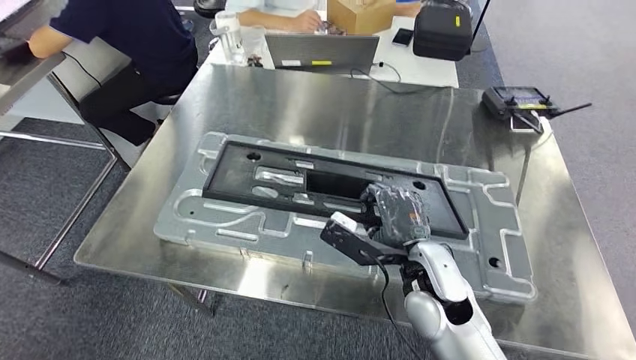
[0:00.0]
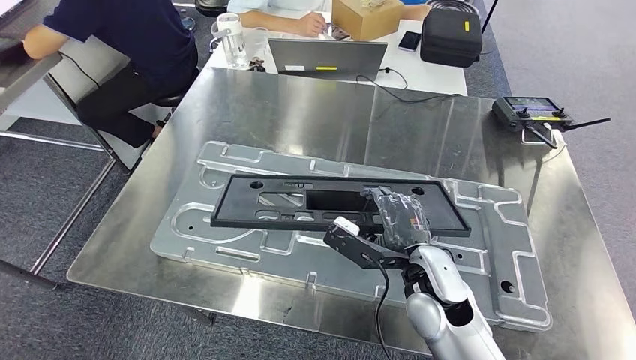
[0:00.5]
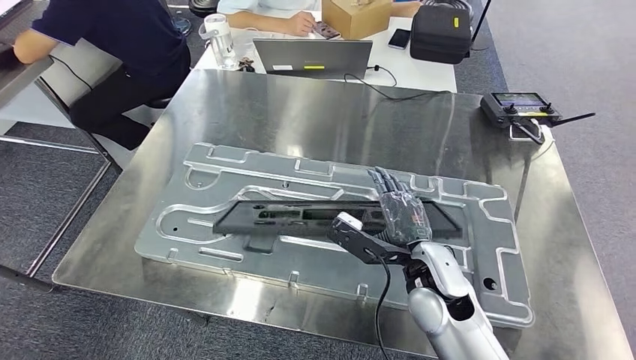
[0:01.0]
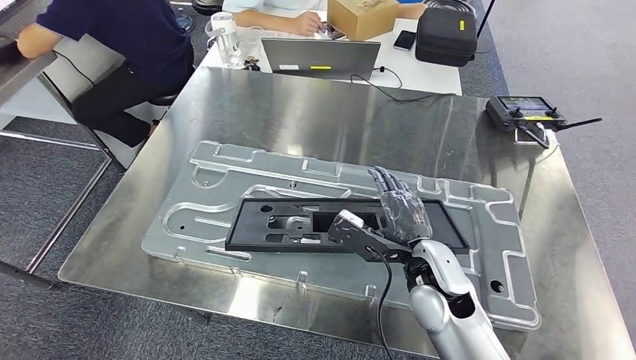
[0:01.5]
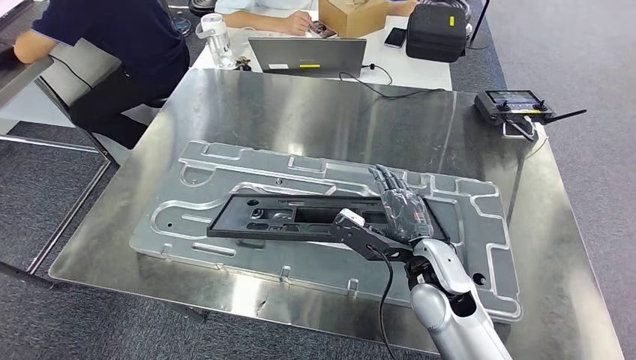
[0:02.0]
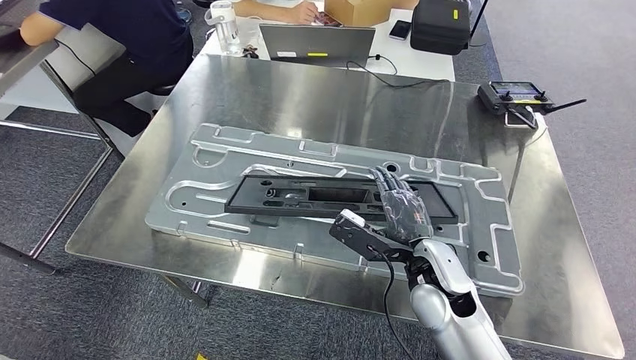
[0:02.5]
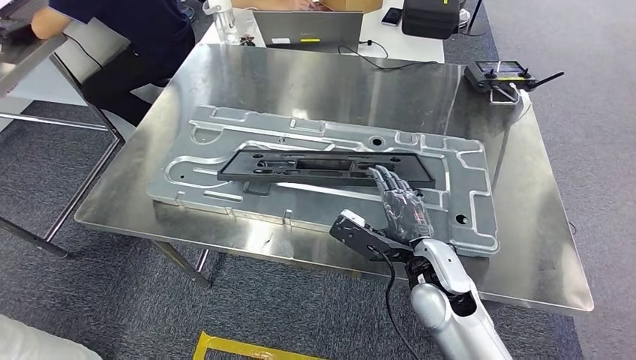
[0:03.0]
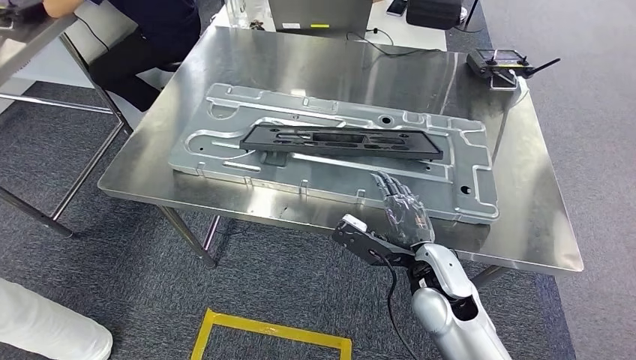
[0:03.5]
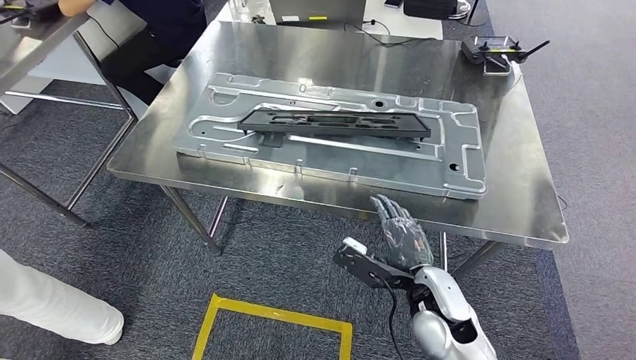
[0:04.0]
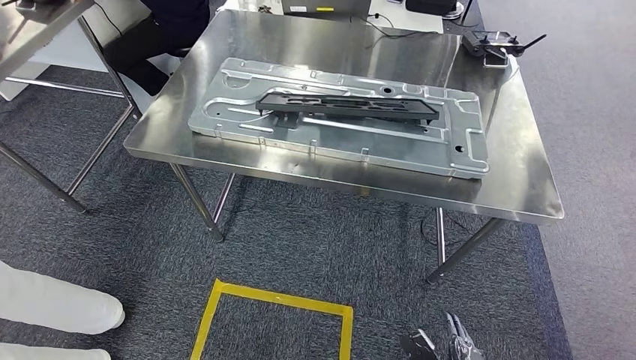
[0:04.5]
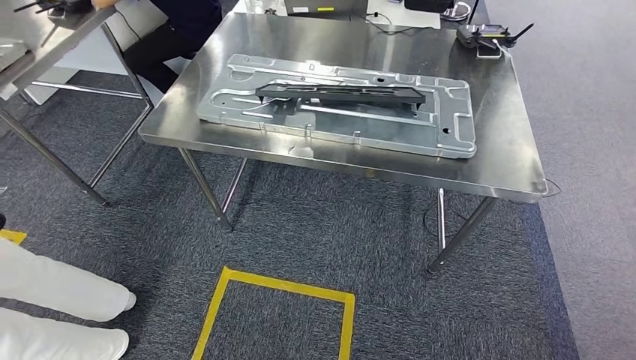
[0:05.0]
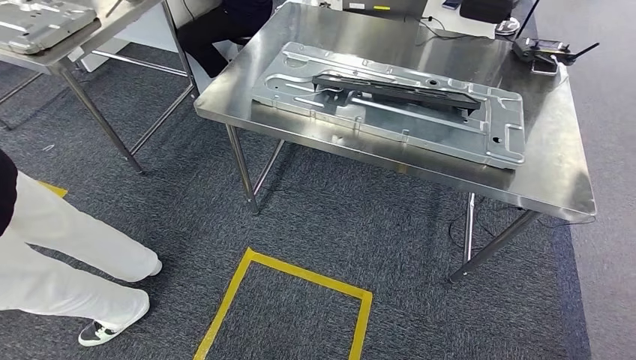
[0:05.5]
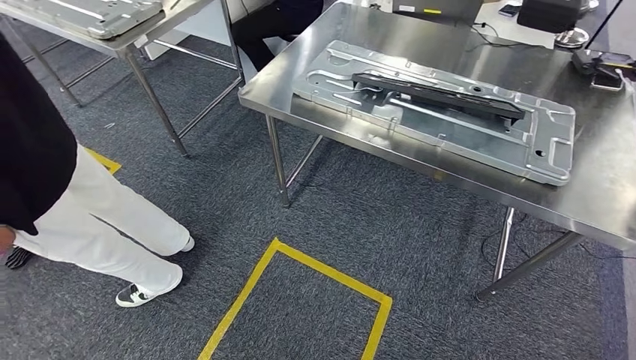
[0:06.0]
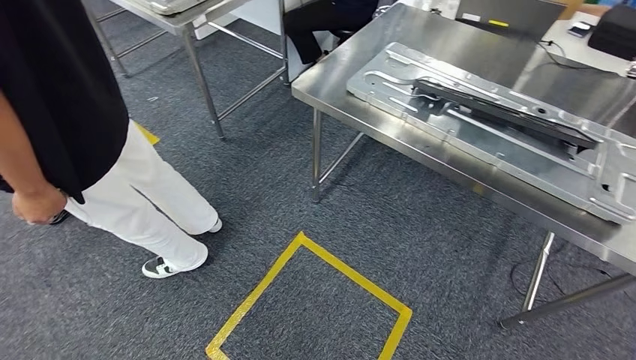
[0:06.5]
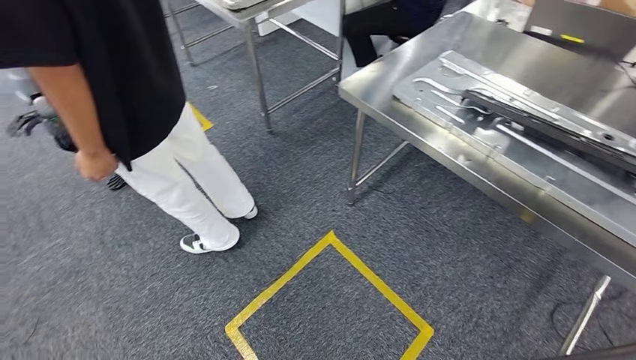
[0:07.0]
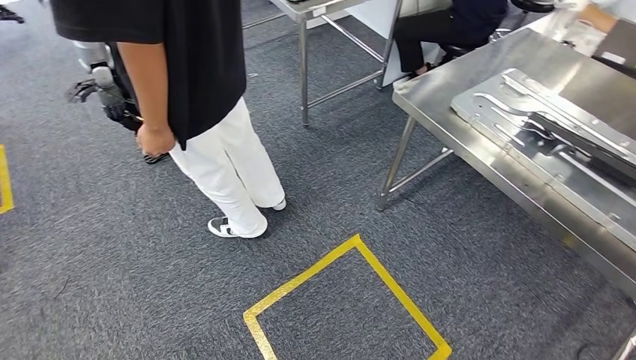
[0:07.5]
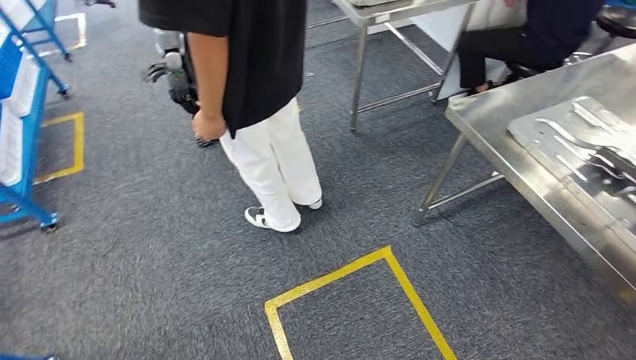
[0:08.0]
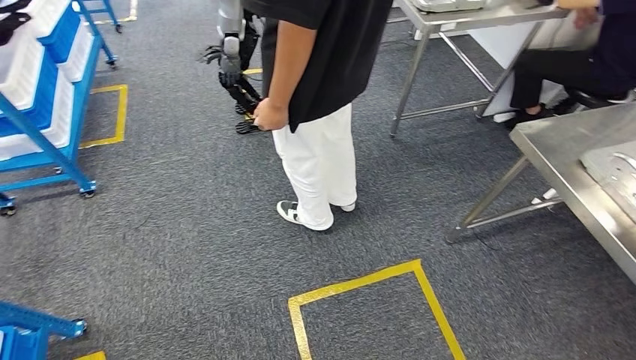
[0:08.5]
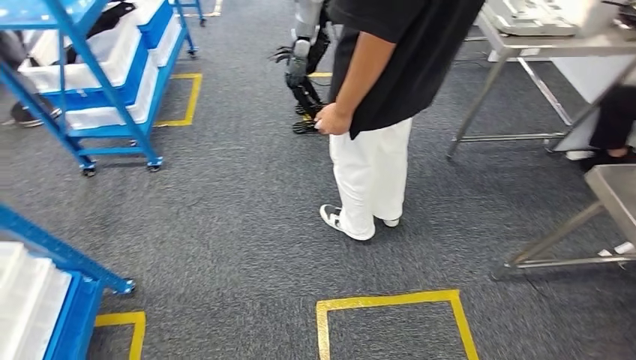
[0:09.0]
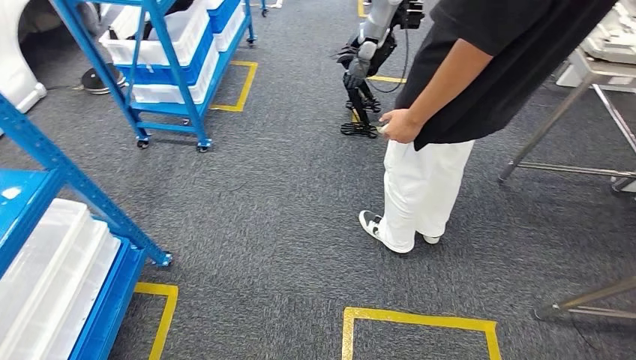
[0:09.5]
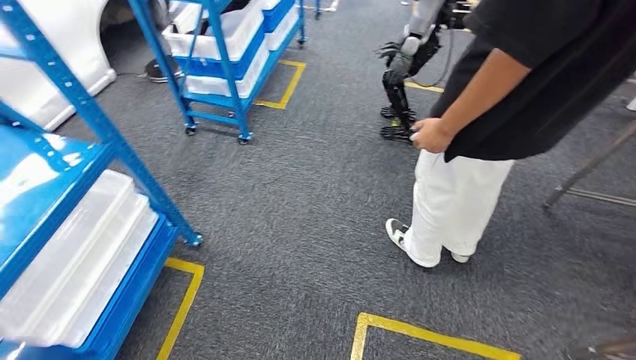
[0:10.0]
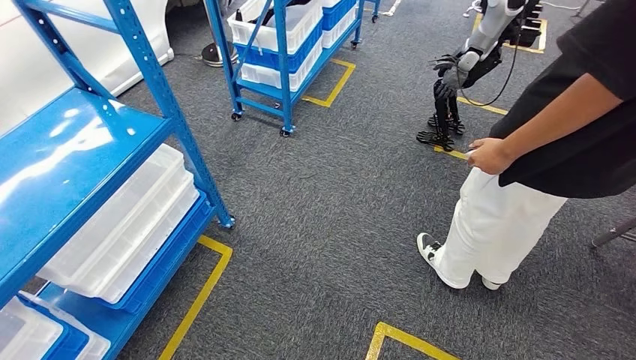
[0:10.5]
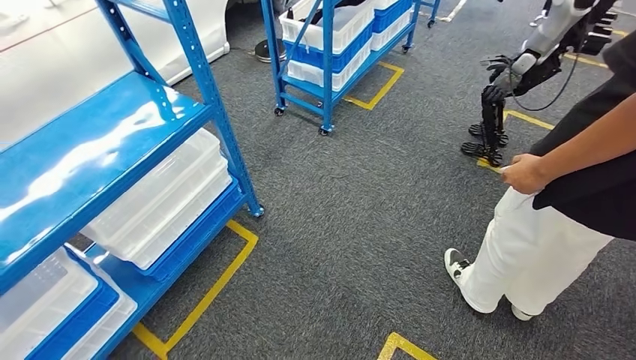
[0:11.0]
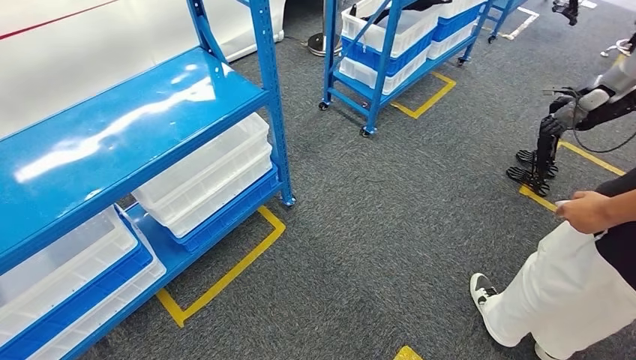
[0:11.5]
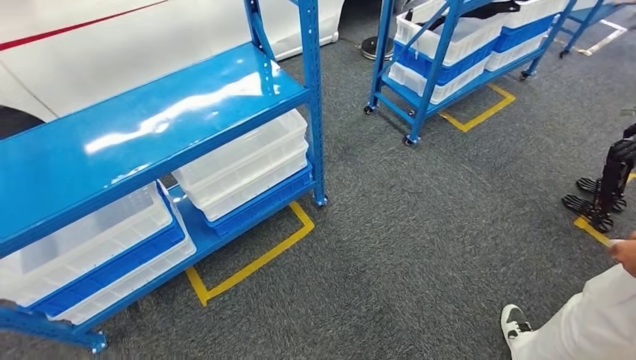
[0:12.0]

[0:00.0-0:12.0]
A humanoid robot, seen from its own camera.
Step, 0:00.0 to 0:03.0: Insert the large parts into the corresponding slots on the workbench.

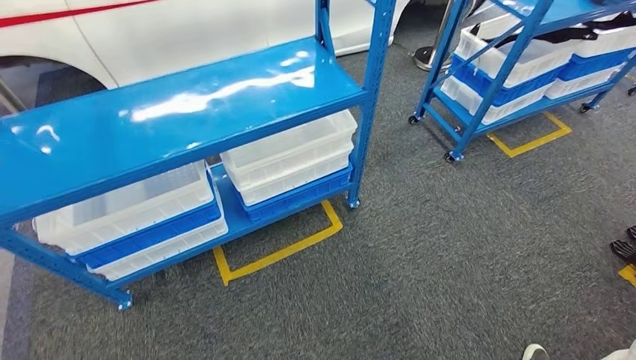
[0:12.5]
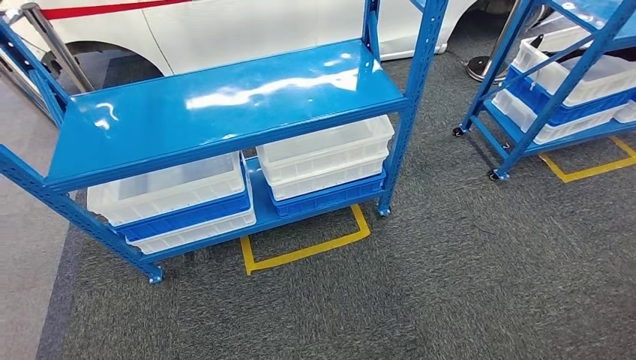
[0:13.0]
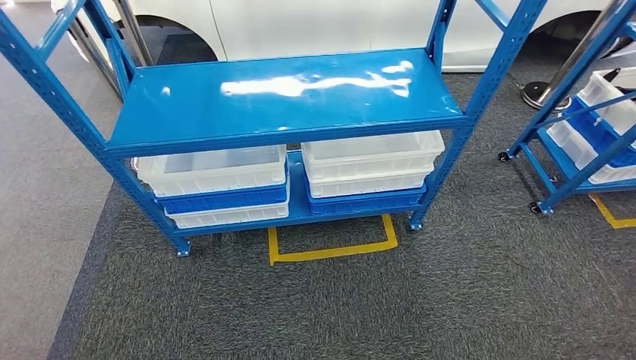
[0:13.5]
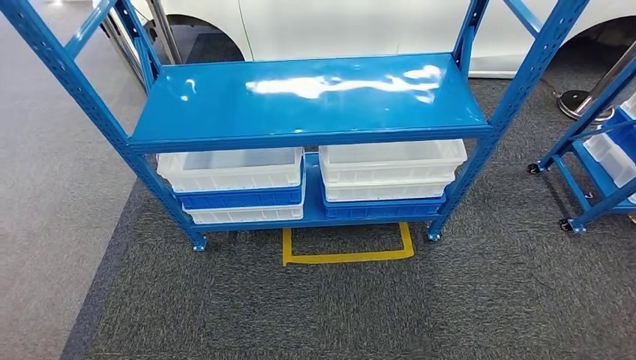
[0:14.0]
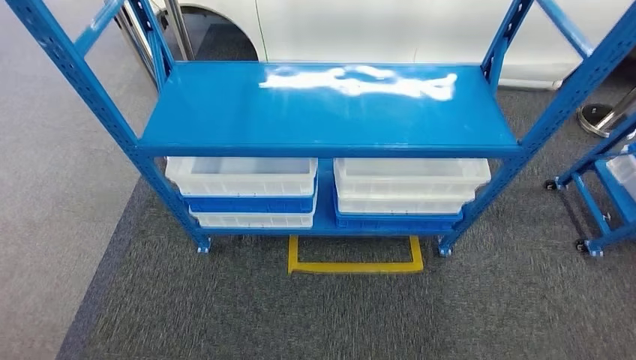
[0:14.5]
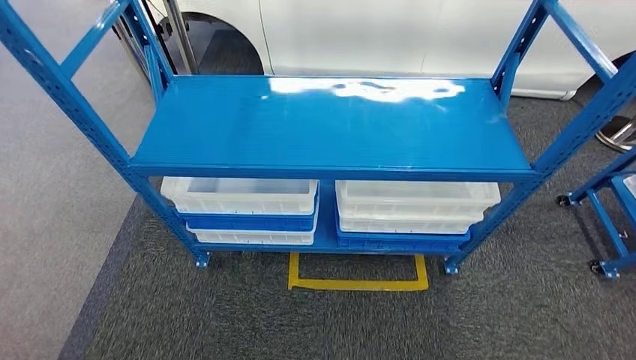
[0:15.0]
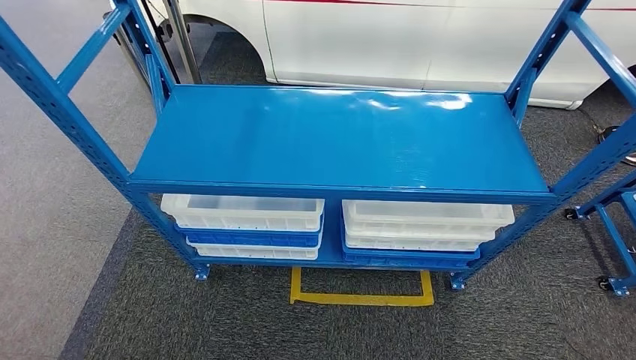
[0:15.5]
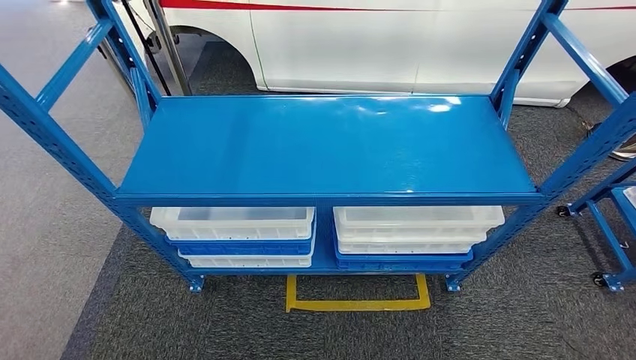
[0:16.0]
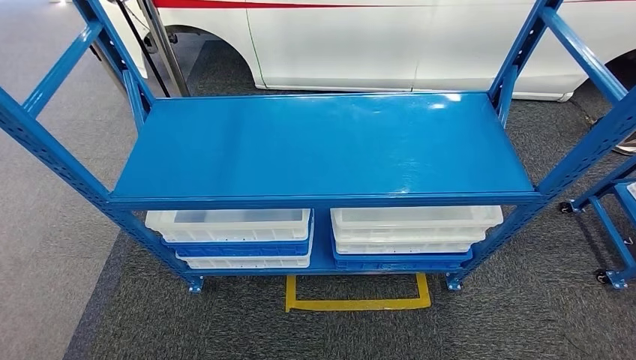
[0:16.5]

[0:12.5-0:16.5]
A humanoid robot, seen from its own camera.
Step, 0:12.5 to 0:14.5: Return to the initial position at the shelf.
